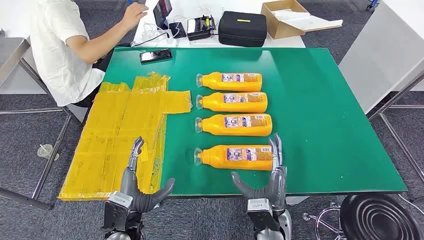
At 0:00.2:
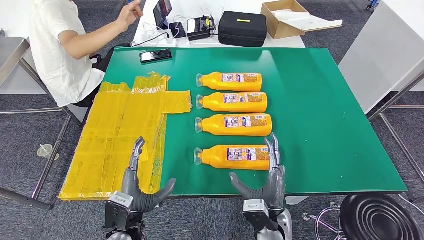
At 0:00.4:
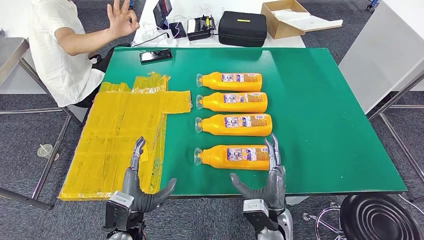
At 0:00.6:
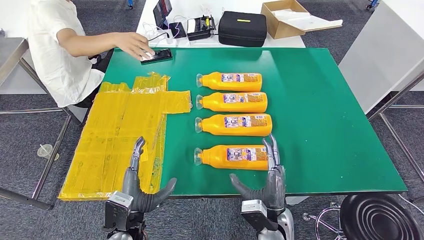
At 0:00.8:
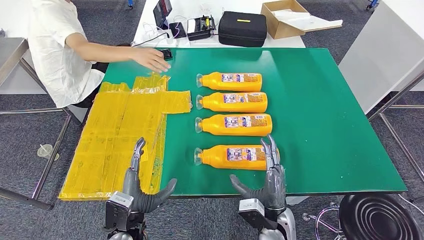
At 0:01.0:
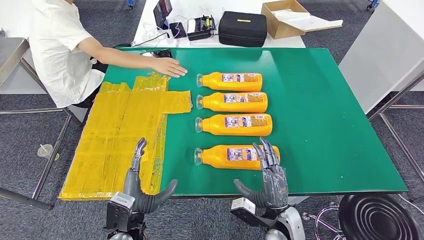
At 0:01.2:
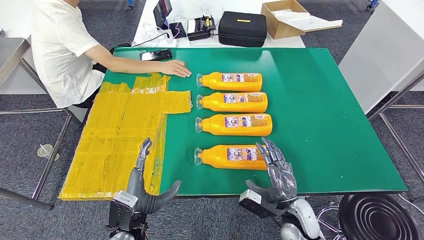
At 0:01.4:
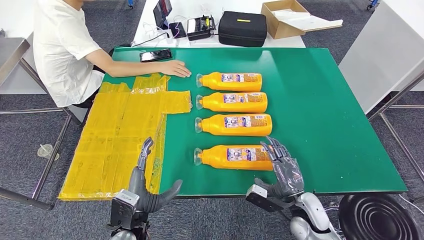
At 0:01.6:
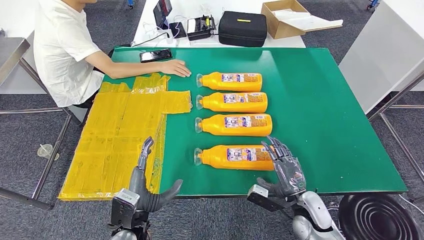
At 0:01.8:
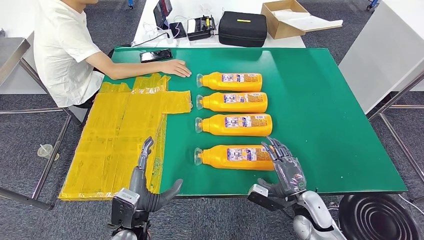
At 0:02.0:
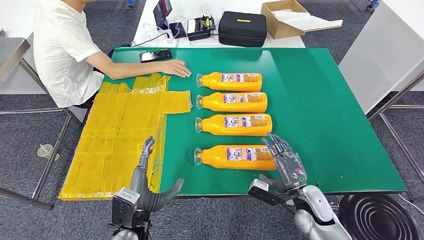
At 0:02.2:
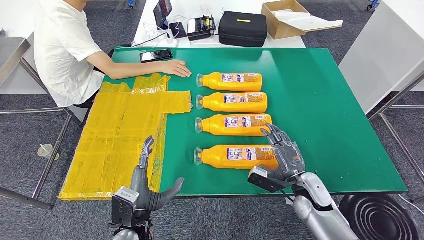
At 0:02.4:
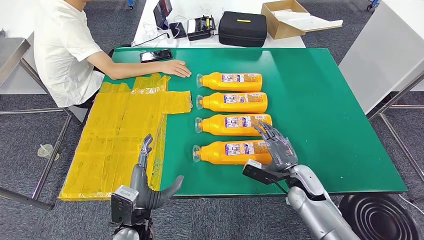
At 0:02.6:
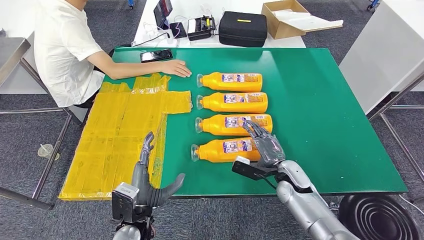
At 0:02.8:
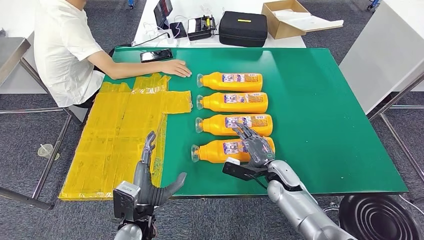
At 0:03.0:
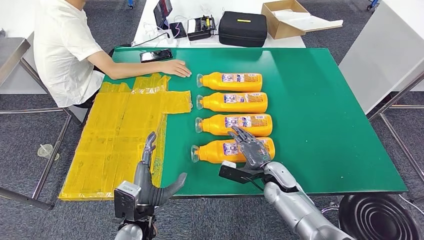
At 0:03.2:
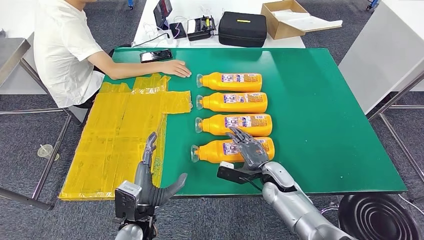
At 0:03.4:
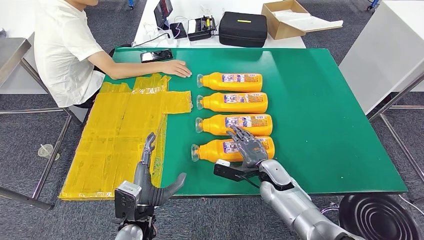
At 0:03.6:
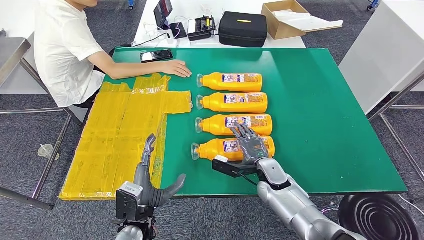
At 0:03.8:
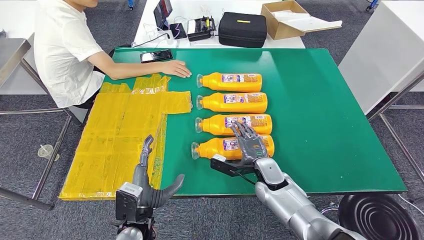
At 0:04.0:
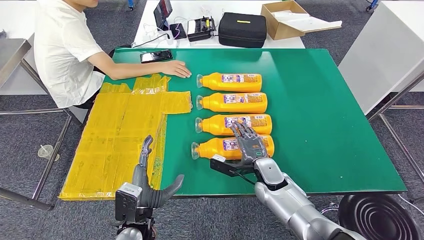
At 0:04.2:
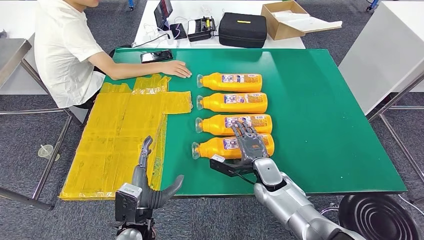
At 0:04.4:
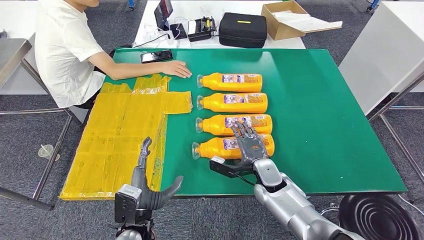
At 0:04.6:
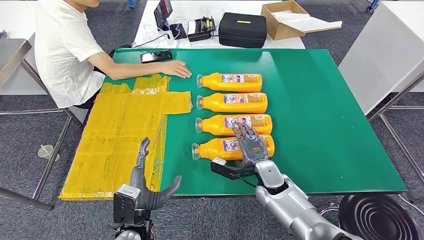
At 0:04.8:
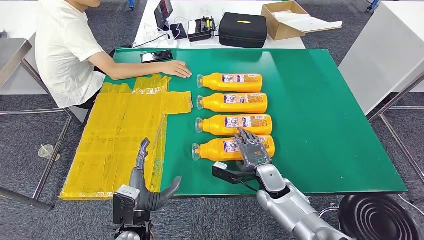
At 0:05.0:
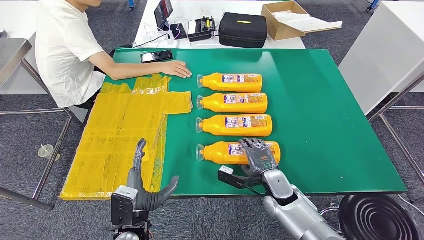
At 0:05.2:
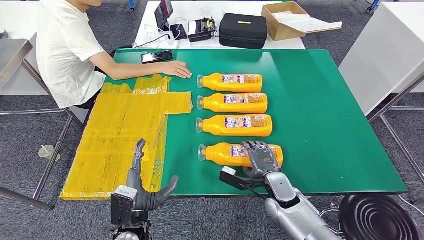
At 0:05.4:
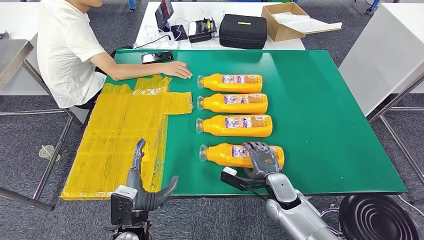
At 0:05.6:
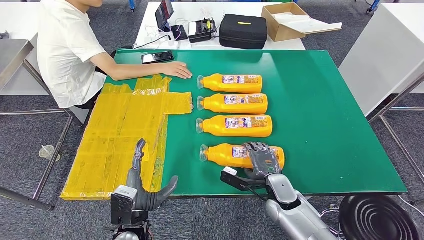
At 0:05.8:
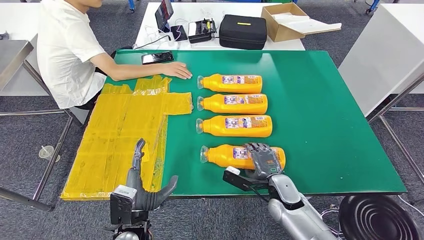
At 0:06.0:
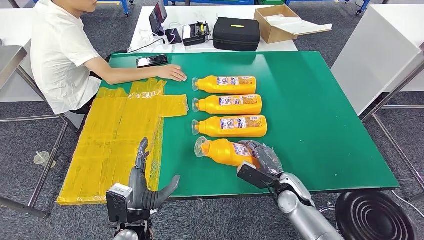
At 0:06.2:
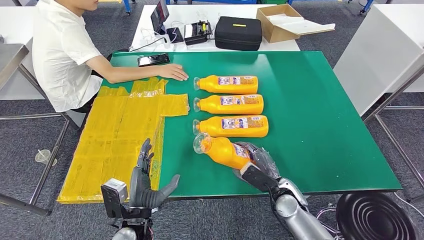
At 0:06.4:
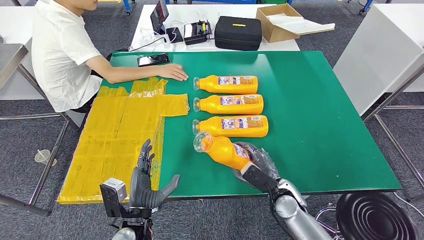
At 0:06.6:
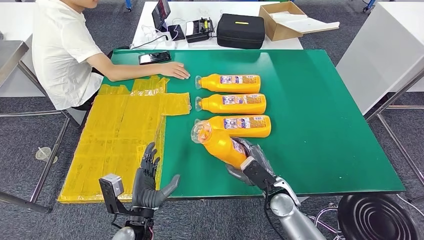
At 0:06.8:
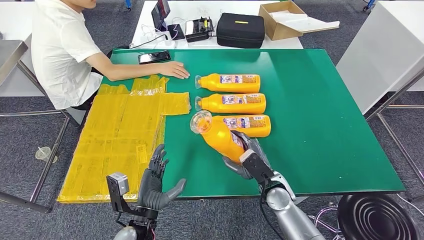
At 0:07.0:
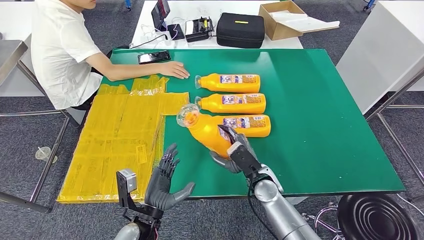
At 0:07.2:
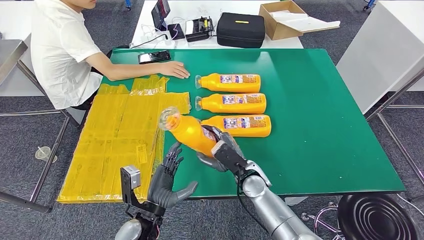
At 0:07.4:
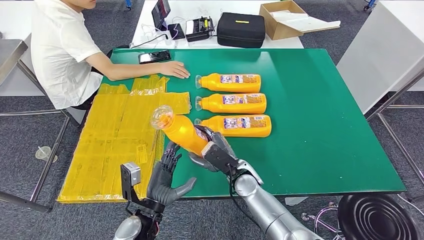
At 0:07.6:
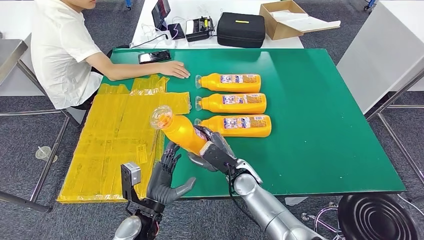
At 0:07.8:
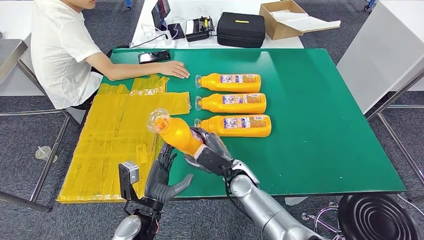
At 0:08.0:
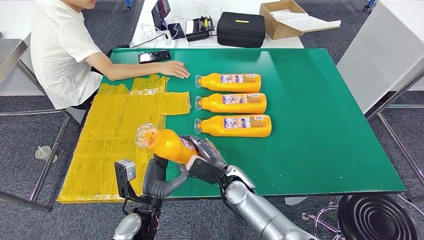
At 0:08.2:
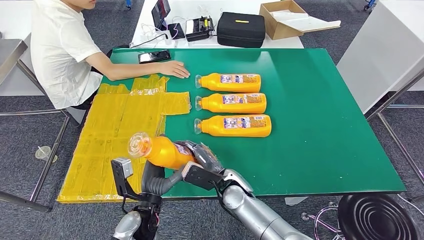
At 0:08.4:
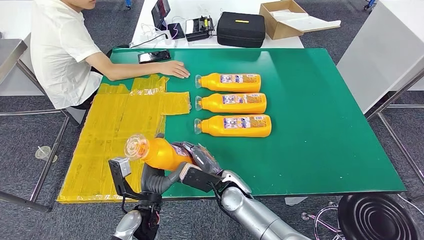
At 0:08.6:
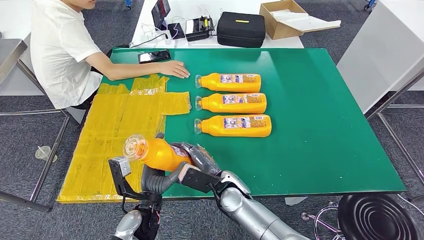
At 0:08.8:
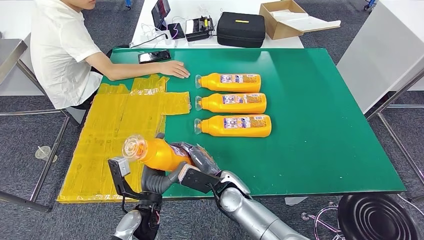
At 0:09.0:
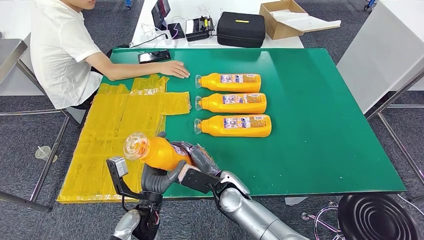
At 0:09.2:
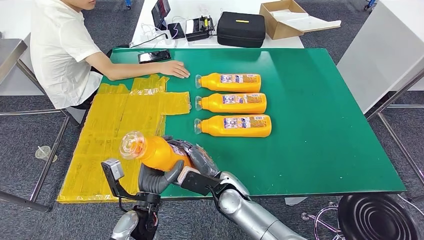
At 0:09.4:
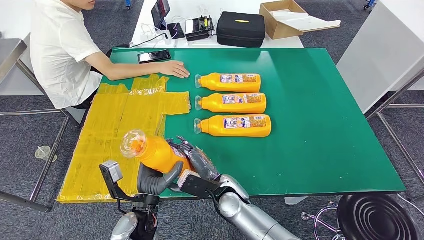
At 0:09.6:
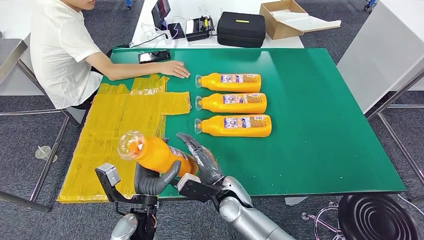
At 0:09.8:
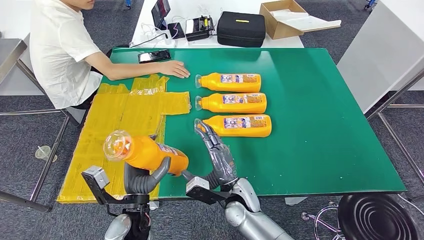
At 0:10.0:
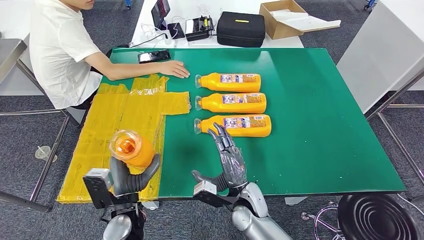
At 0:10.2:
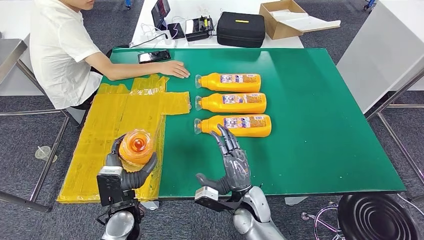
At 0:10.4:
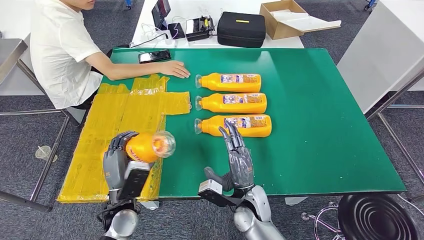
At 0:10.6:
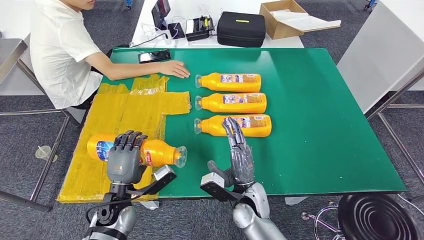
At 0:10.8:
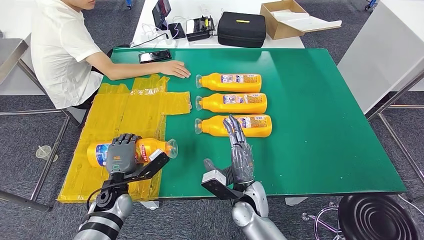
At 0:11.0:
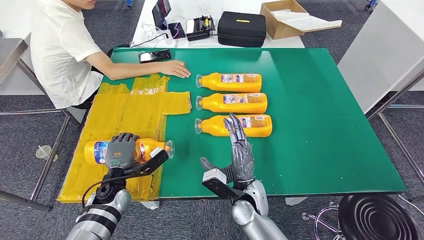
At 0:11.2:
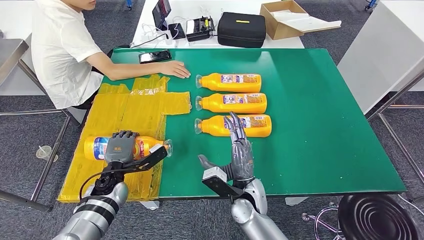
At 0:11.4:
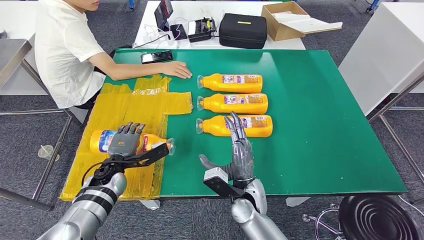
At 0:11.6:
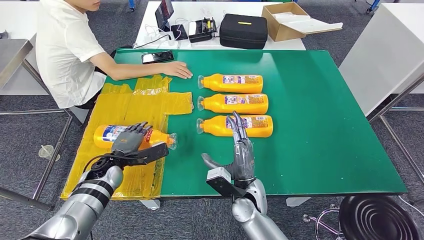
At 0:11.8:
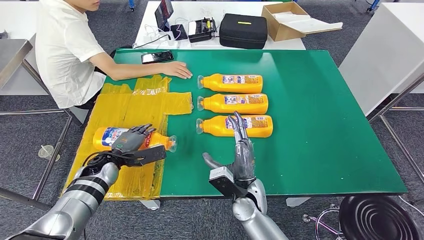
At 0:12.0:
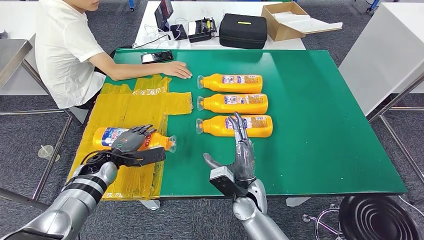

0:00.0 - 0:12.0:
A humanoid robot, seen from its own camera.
Step, 0:00.0 - 0:07.0: Take the fast-moving consumer goods bottle from the table.
0:01.6 - 0:03.0: The right hand is displaced forward by approximately 10 cm.
0:07.6 - 0:09.0: The right hand ends up roughly 5 cm from where it was.
0:09.0 - 0:10.4: The left hand is displaced to the left by about 5 cm. The right hand shifts by approximately 5 cm.

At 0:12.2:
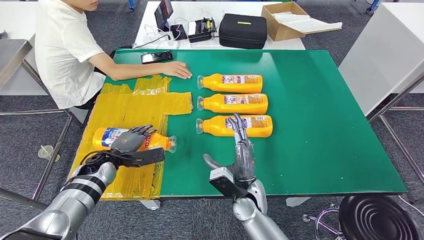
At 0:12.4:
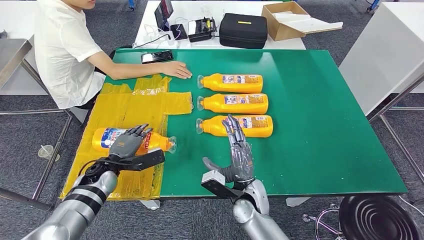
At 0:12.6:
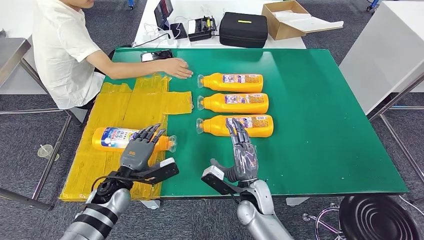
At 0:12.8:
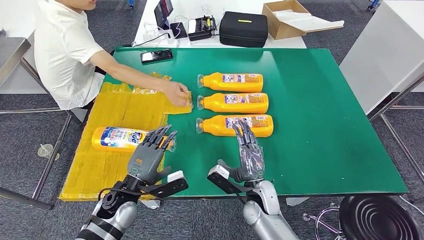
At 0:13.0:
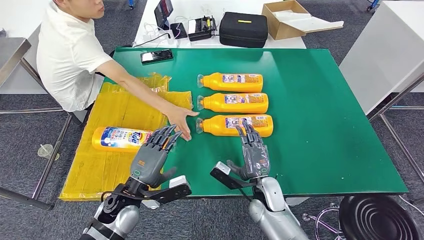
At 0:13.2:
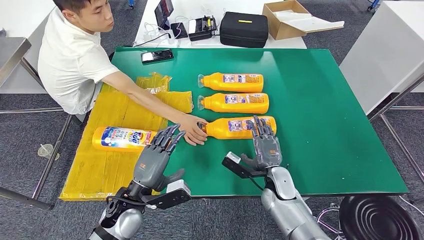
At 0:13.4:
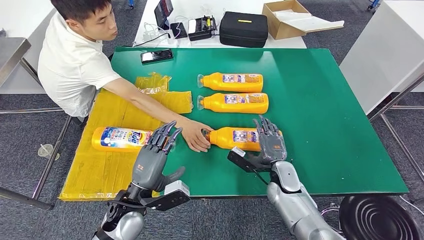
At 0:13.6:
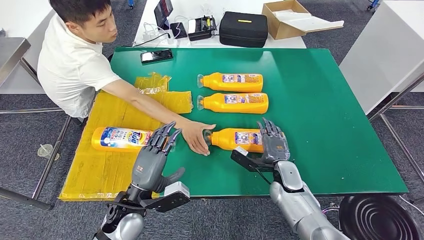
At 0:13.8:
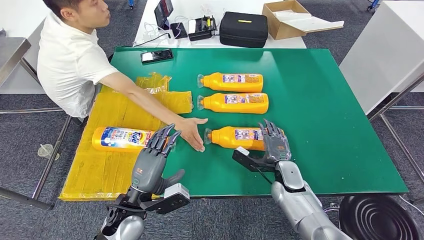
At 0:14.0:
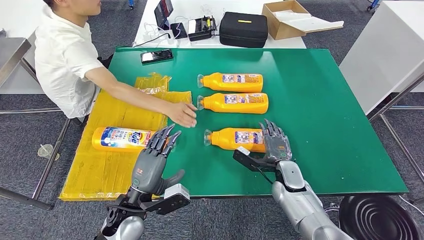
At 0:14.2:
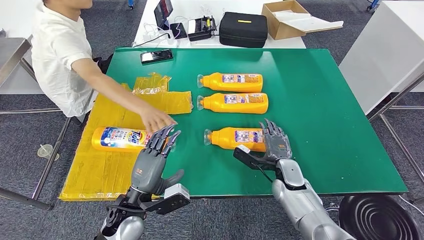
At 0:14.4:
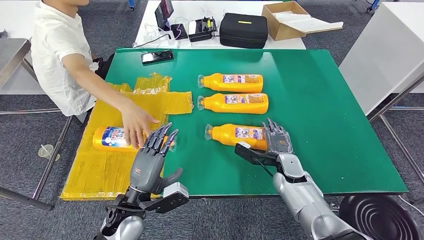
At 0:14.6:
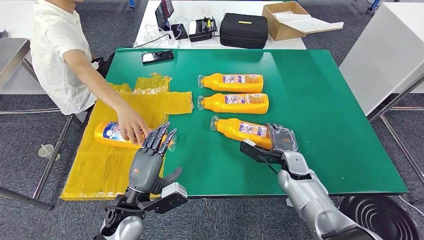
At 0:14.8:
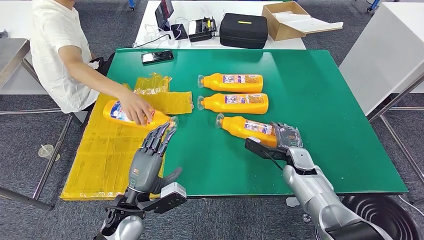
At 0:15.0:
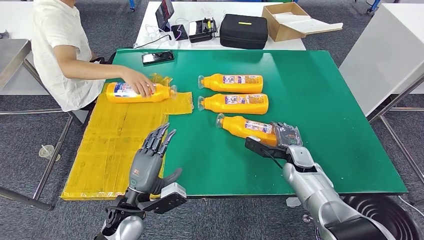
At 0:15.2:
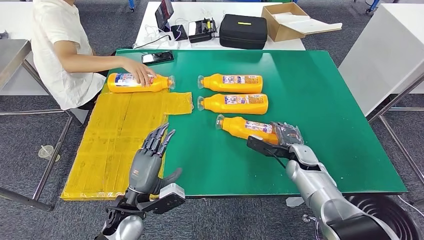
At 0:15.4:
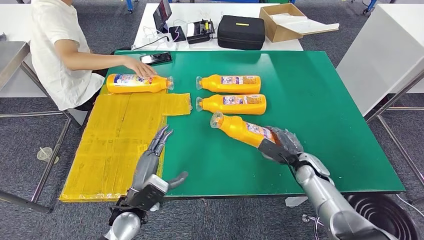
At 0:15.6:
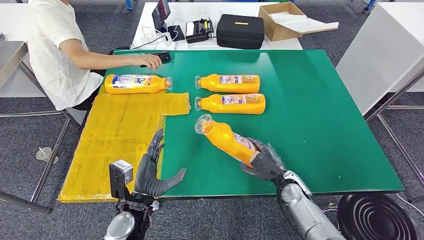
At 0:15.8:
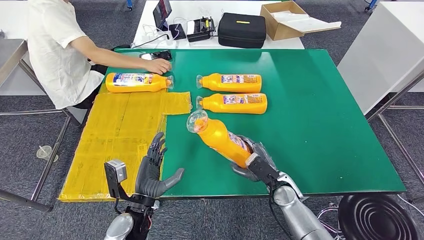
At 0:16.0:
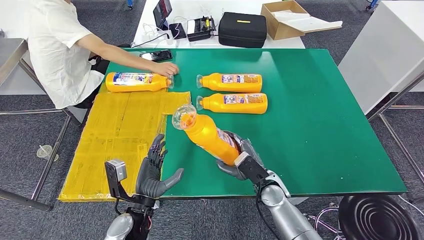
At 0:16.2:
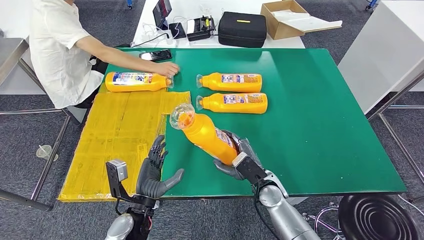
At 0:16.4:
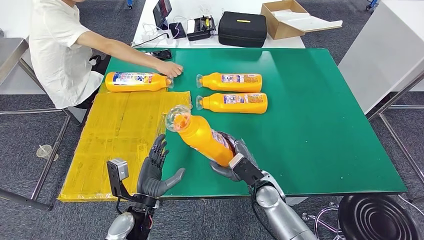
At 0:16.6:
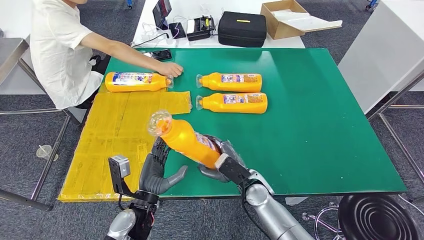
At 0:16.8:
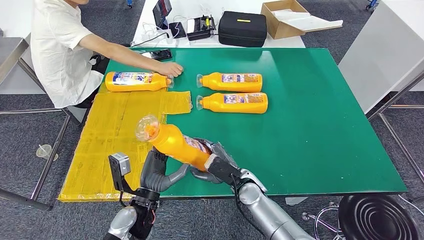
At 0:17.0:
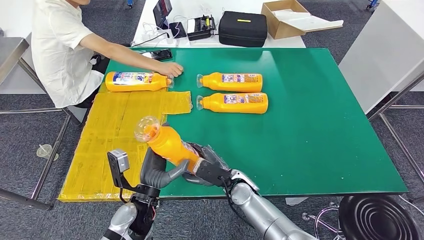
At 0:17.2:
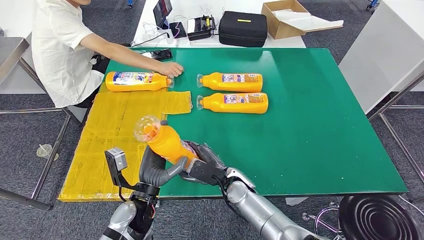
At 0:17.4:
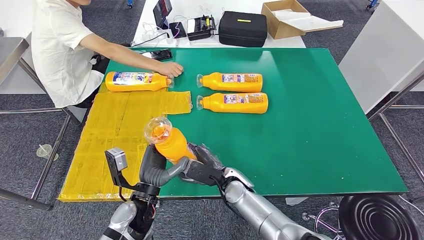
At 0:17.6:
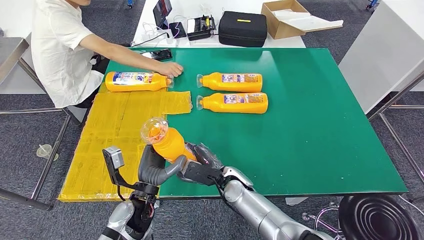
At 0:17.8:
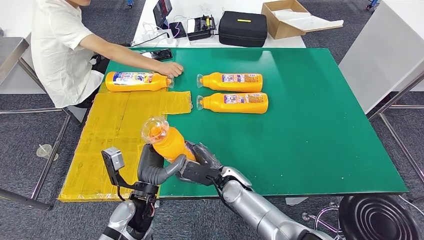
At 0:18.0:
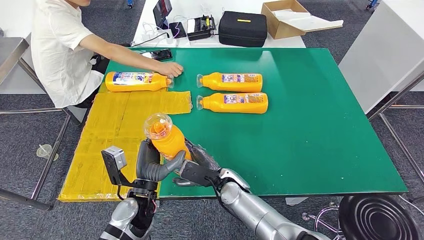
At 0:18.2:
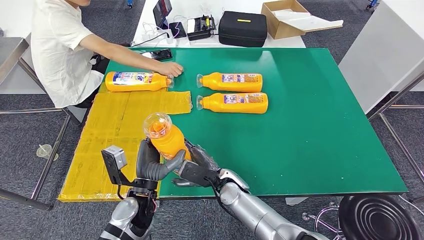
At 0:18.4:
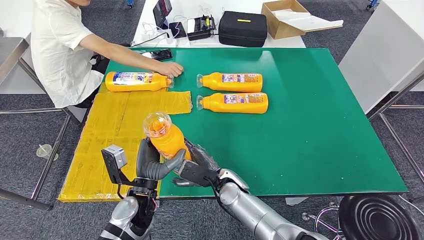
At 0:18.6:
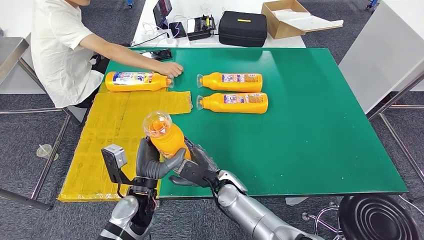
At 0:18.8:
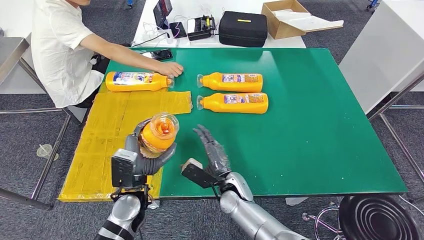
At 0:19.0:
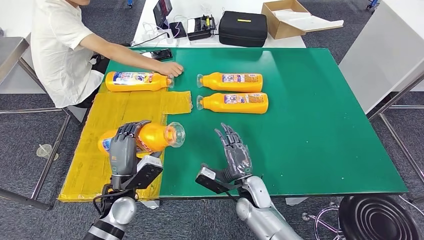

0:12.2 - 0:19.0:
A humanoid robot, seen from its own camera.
Step, 0:14.4 - 0:17.2: Pick up the fast-moving consumer goods bottle from the table.
0:16.2 - 0:17.6: The right hand travels to the left by some 10 cm.
0:17.6 - 0:19.0: The right hand ends up some 5 cm from where it was. The left hand moves to the left, about 5 cm.
